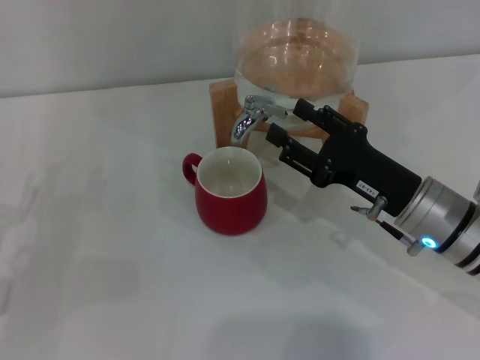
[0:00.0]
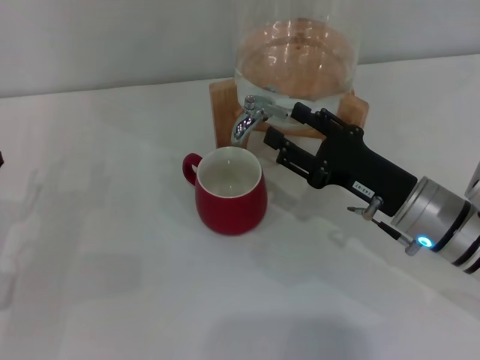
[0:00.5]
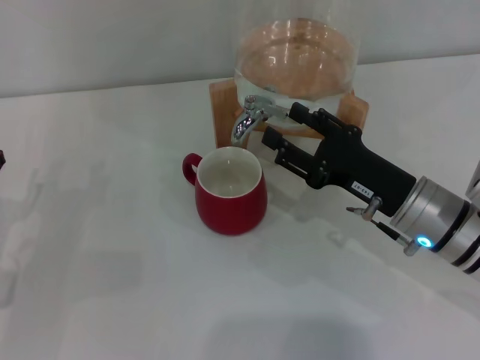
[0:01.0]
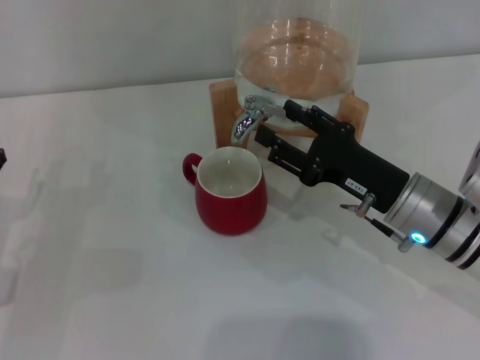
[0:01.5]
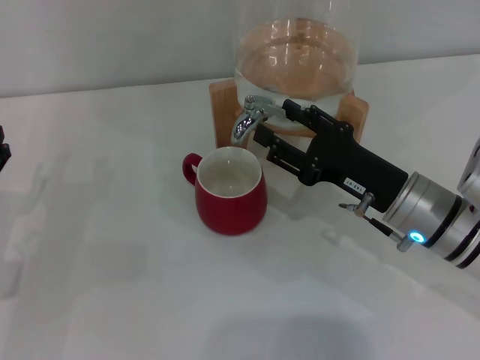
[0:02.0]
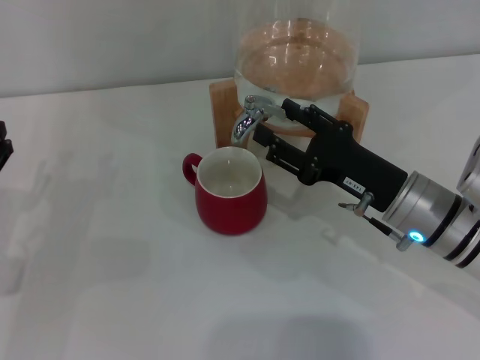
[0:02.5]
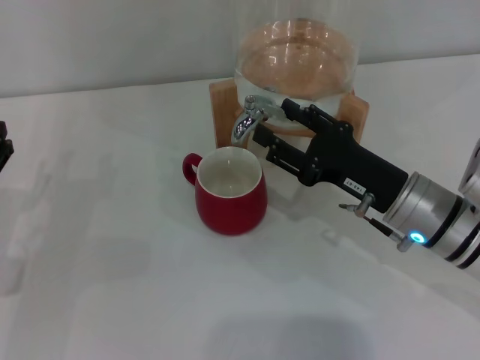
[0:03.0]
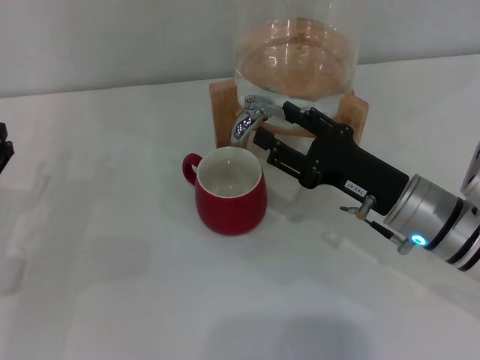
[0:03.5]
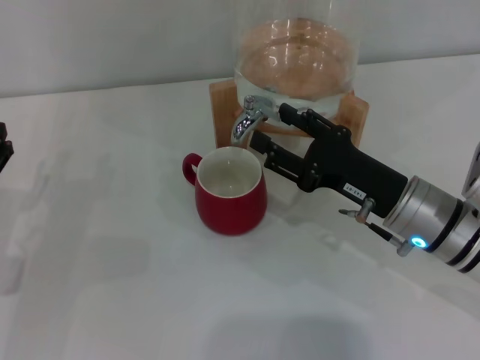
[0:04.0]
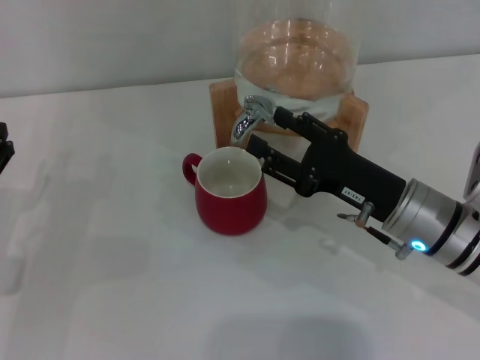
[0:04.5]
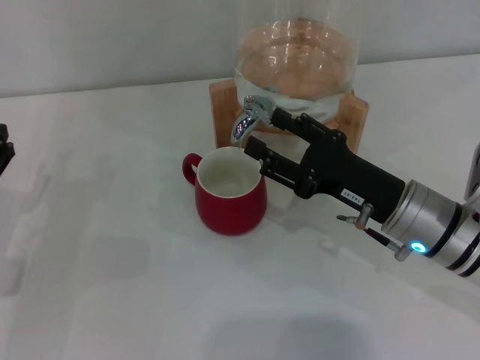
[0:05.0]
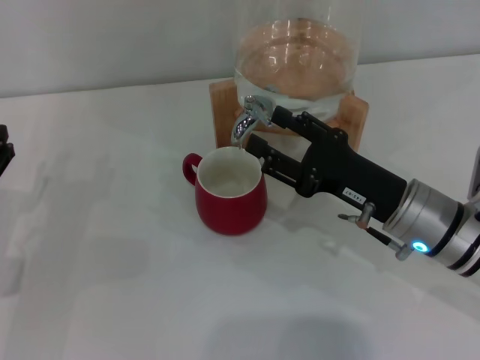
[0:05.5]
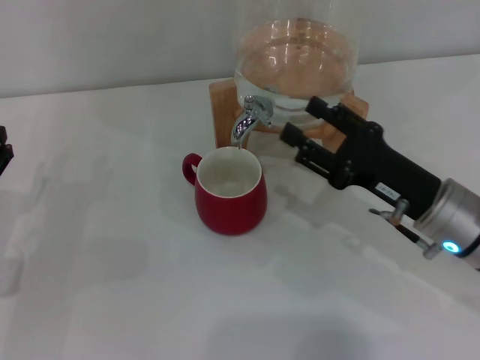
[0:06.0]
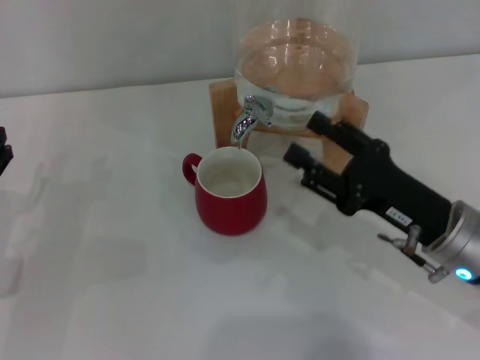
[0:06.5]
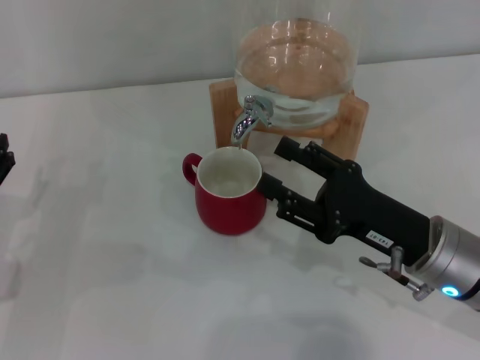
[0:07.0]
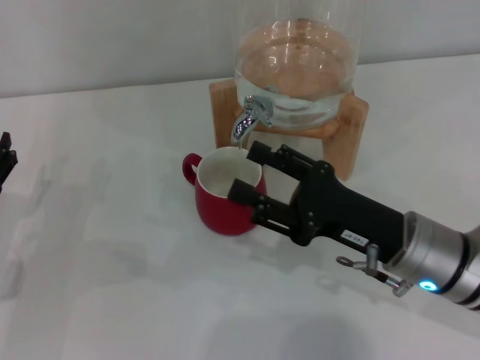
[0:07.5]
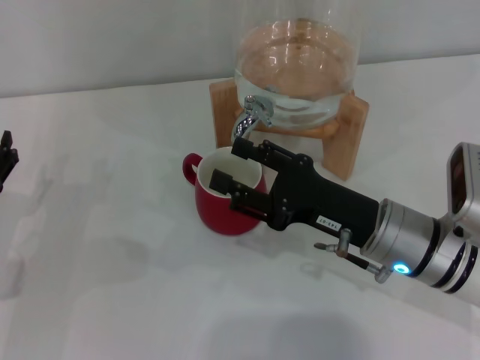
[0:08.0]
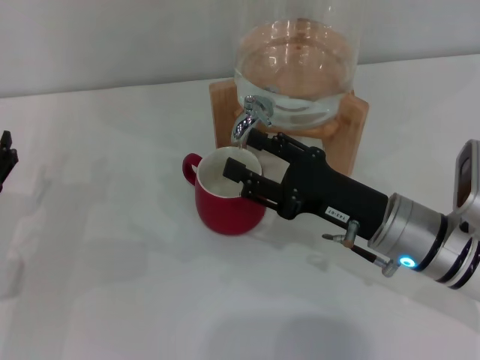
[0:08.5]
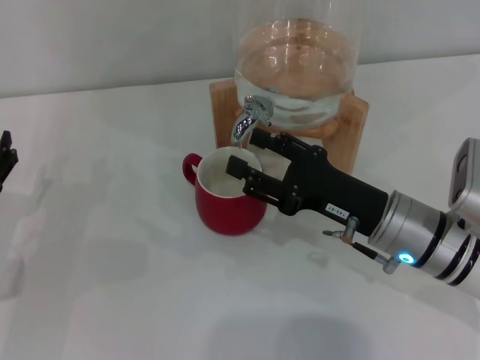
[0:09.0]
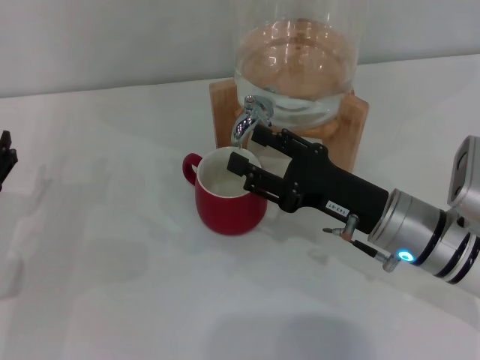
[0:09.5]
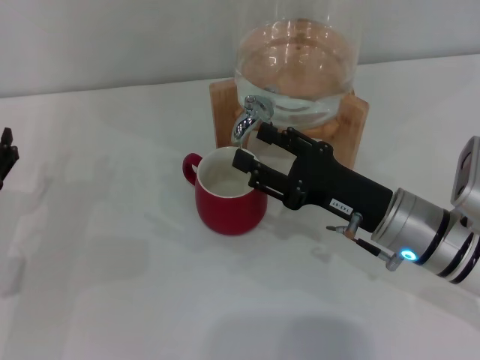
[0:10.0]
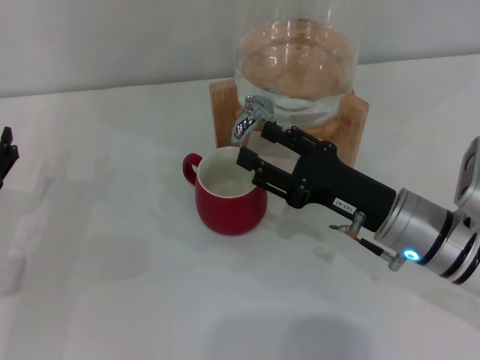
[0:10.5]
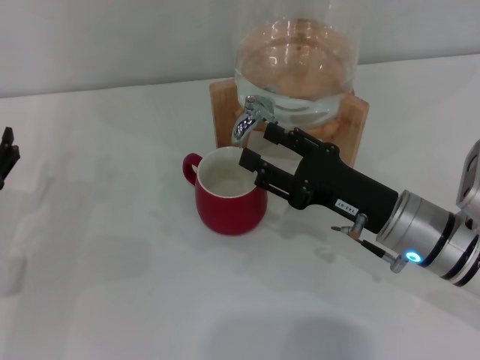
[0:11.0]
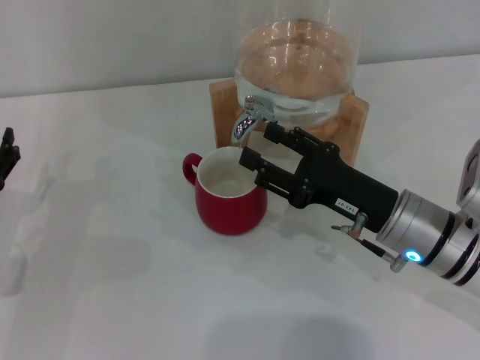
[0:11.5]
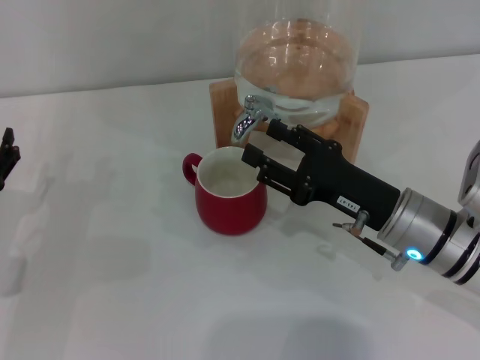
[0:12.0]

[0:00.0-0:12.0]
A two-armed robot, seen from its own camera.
Task of the whole recording: the left gripper pick up the red cup and place it horizontally under the faucet, the right gripper turn on the faucet to fill the cup, and then turn off the faucet.
Step, 0:00.0 to 0:05.5: Open the dispenser valve and fill the cup with water with the right gripper.
0:00.0 to 0:02.0: The grippers move only a little.
0:02.0 to 0:04.0: The two grippers keep their place.
0:04.0 to 0:06.0: The grippers move only a little.
0:06.0 to 0:08.0: The right gripper goes some 5 cm to the left.
0:08.0 to 0:10.0: The grippers move only a little.
0:10.0 to 0:12.0: Neither gripper changes place.

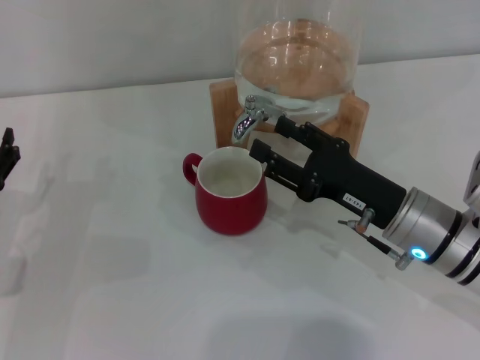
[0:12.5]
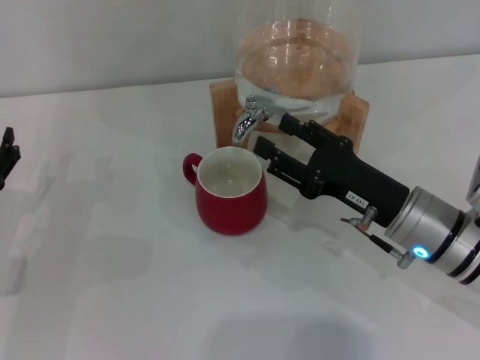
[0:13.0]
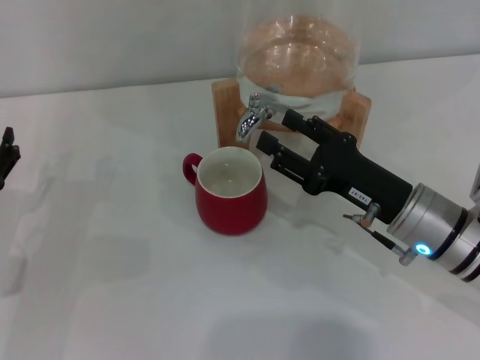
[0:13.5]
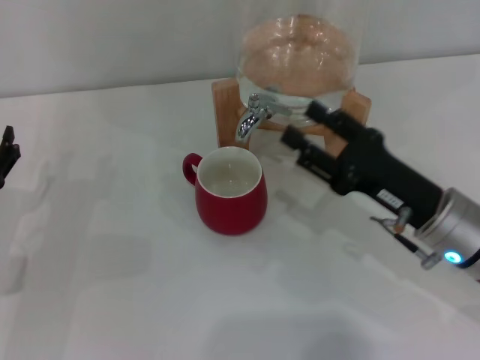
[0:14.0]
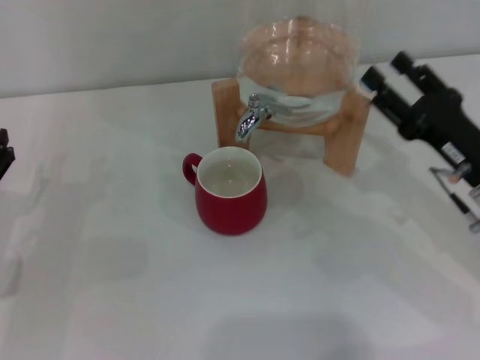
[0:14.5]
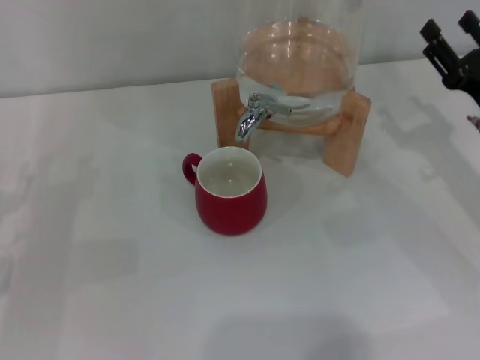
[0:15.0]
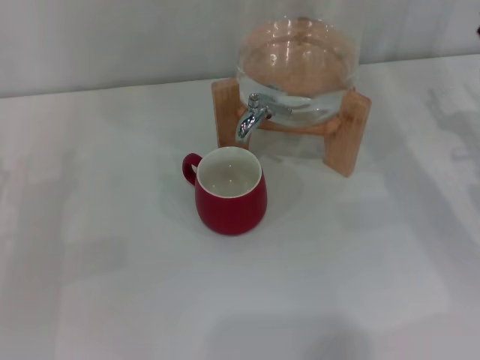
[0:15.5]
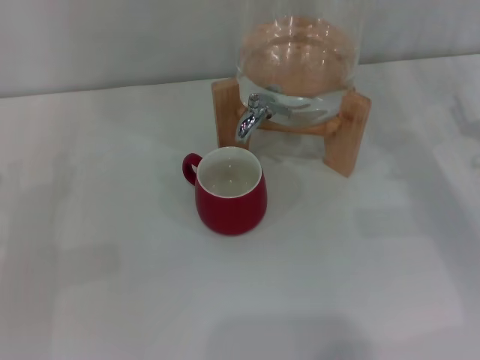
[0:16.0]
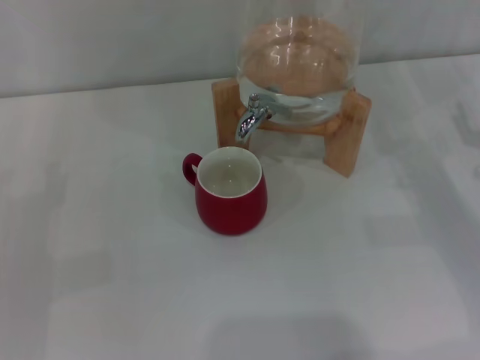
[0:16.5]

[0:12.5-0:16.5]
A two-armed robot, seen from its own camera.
Task of the whole recording: the left gripper pick up the red cup and place it horizontally under the faucet, the right gripper turn on the faucet to fill the cup, and then turn off the faucet.
0:12.5 to 0:14.5: The right gripper moves to the right, roughly 10 cm.
0:14.5 to 0:16.5: The right gripper shifts some 10 cm to the right.

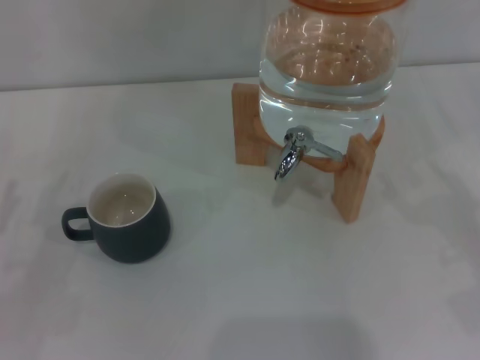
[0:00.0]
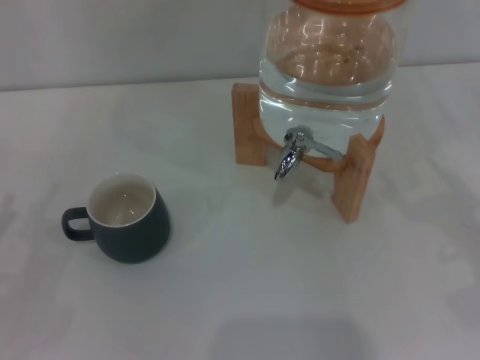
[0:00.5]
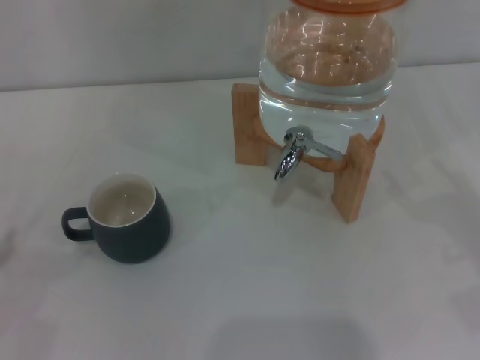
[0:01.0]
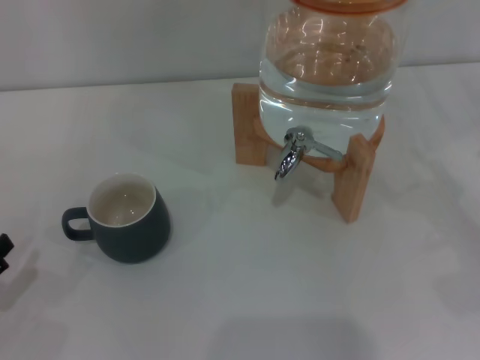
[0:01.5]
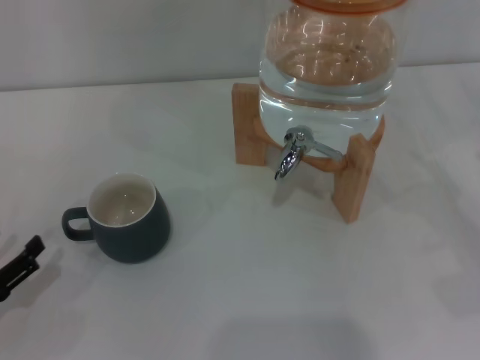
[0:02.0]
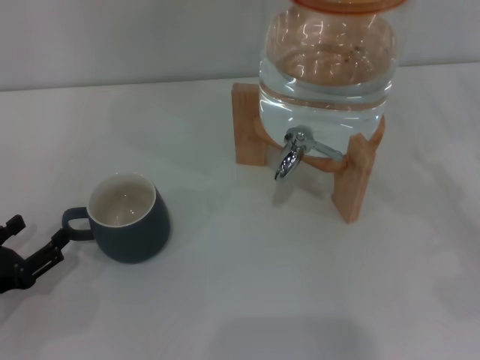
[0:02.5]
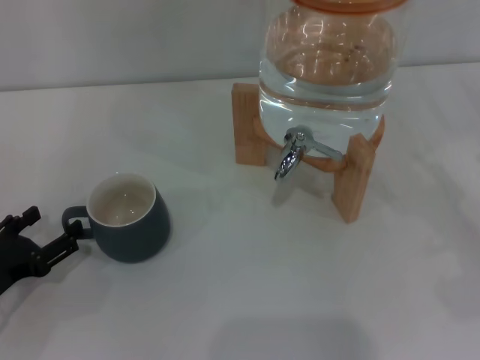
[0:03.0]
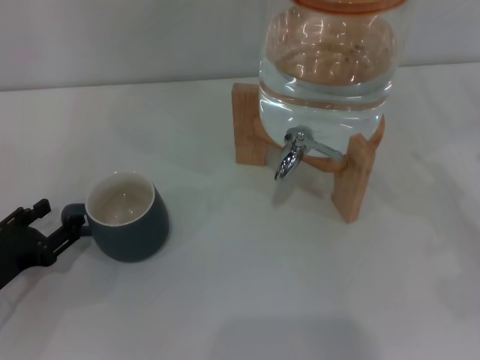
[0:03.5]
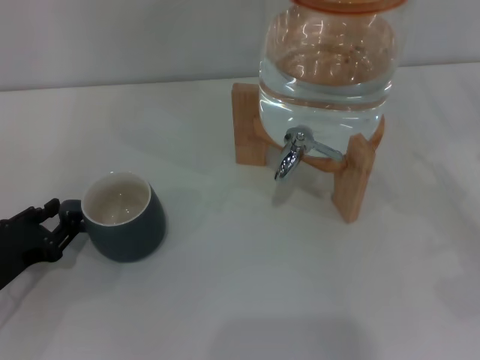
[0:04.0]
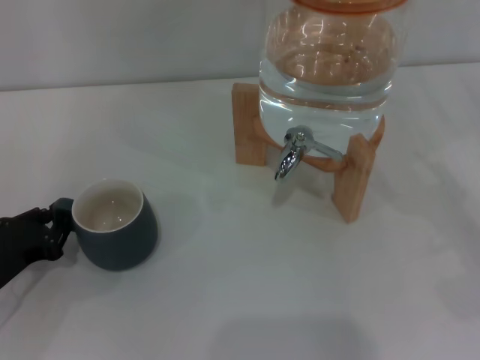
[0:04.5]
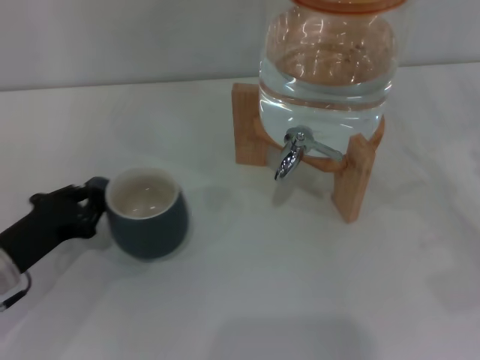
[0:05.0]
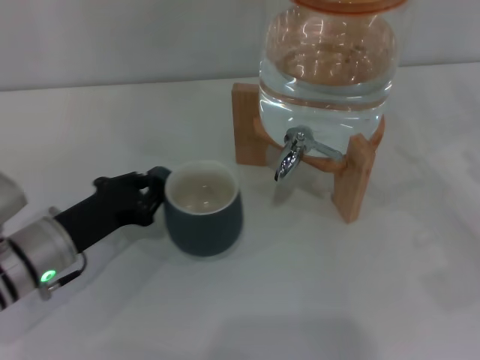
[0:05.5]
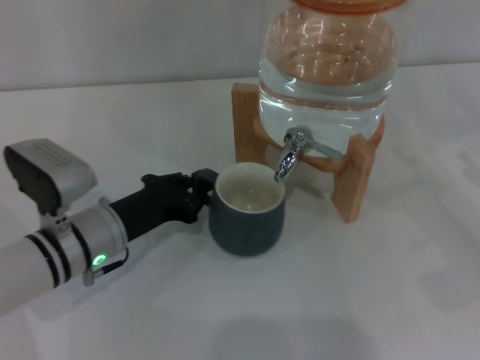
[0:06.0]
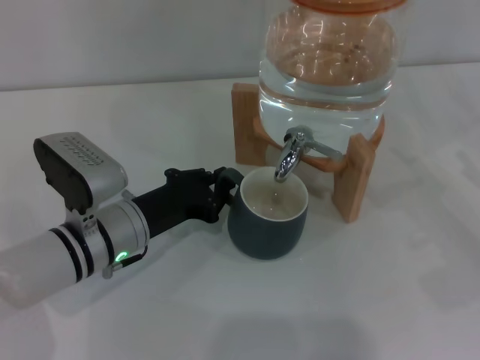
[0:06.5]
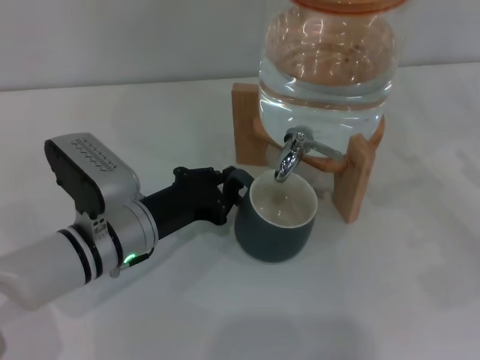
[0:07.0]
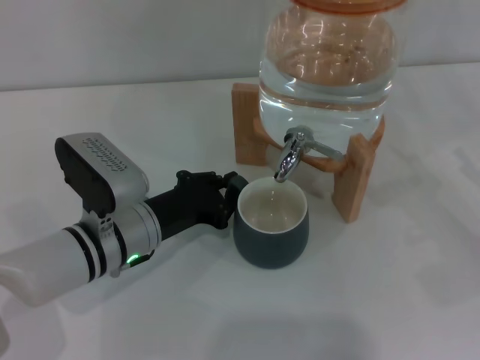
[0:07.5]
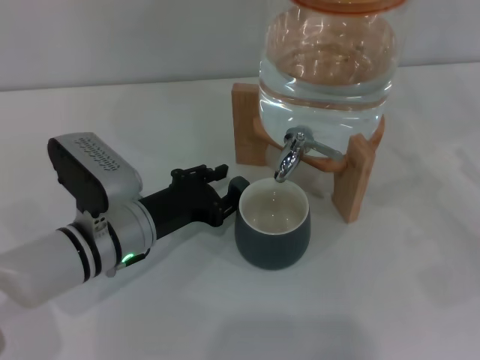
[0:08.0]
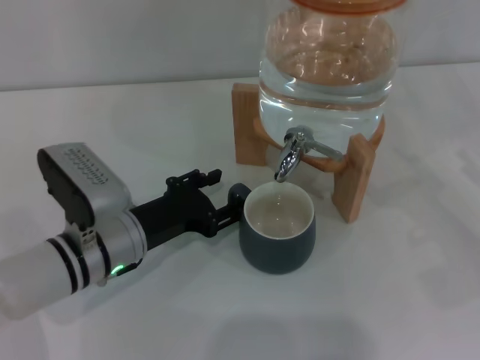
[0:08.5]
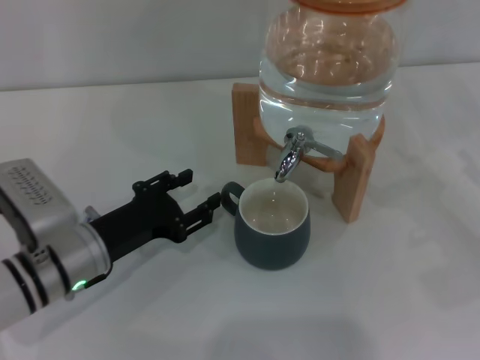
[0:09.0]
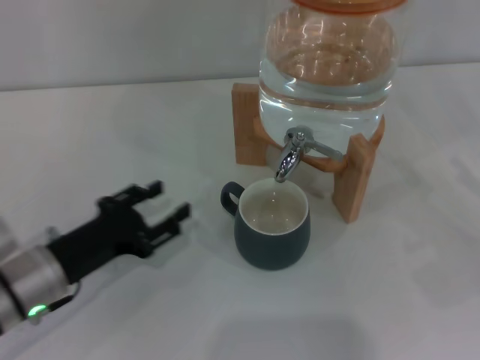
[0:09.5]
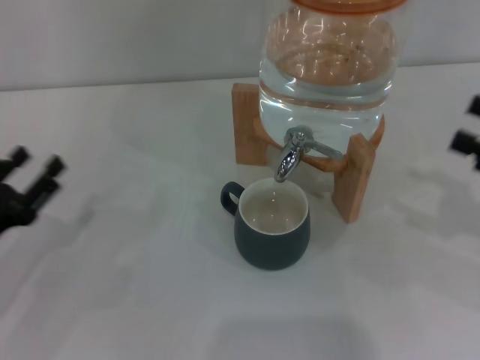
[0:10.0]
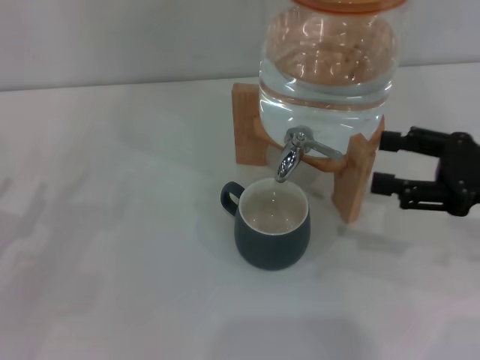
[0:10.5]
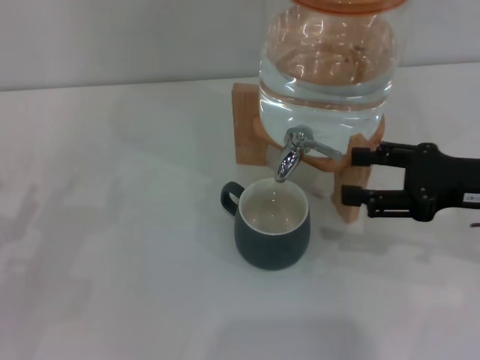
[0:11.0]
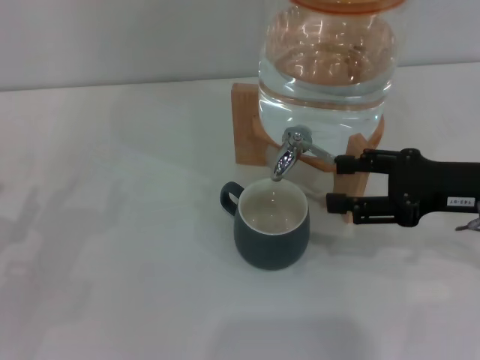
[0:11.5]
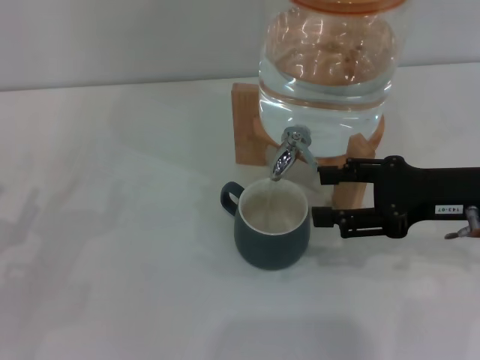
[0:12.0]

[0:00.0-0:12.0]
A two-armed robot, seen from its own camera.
Task of the whole recording: the left gripper pick up the black cup and place it horizontally under the faucet, the right gripper turn on the faucet to fill the cup, and then turn off the faucet.
Step, 0:00.0 to 0:09.0: Move the cup beneath the water dispenser nozzle with the left gripper.
0:00.0 to 0:02.0: The left gripper shifts by some 5 cm.
0:02.0 to 0:04.0: The left gripper travels forward by roughly 5 cm.
0:04.0 to 0:06.0: The left gripper shifts about 15 cm to the right and forward, and closes up.
0:06.0 to 0:08.0: The grippers move only a little.
0:08.0 to 0:10.0: The right gripper shifts roughly 5 cm upward; the left gripper is displaced to the left by about 15 cm, and opens up.
0:10.0 to 0:12.0: The right gripper shifts roughly 10 cm to the left.
